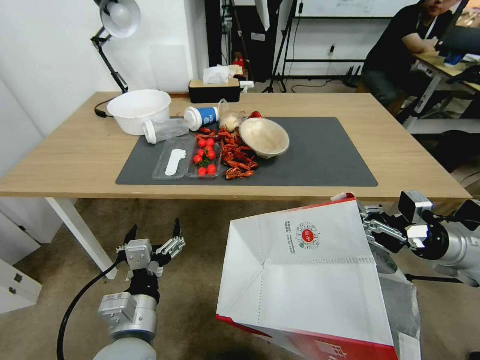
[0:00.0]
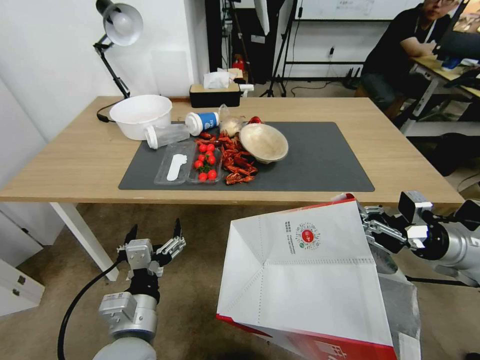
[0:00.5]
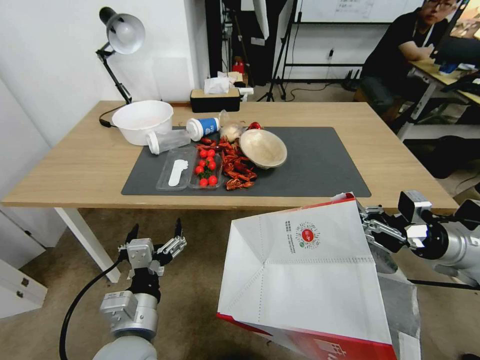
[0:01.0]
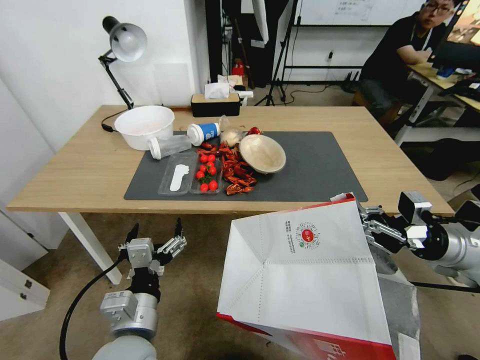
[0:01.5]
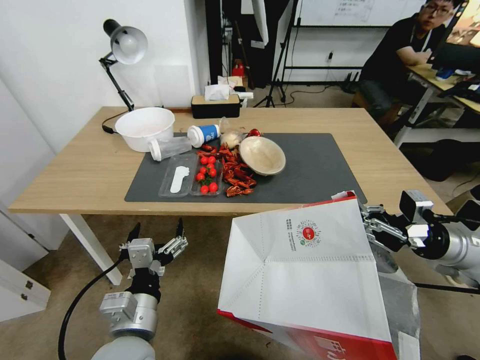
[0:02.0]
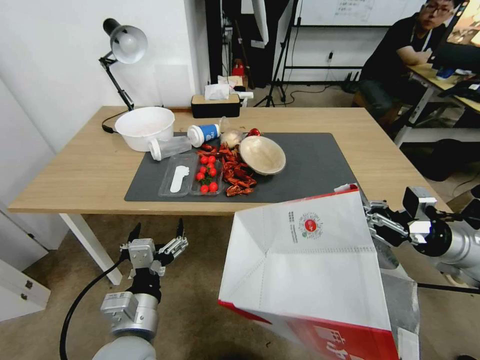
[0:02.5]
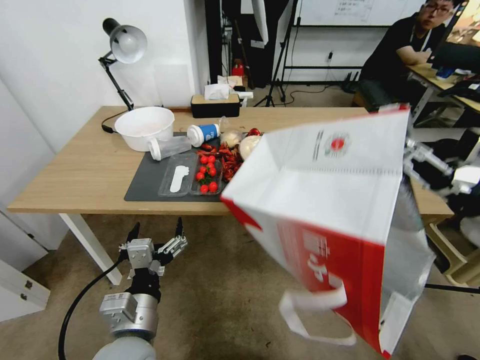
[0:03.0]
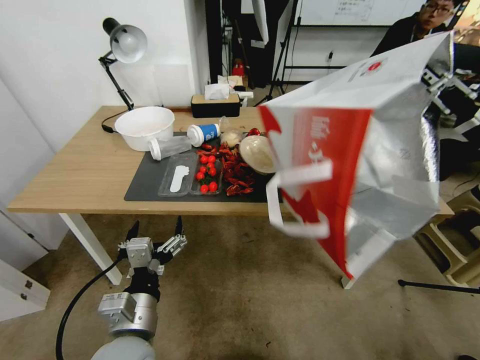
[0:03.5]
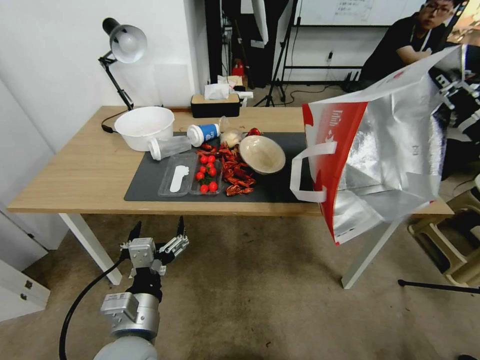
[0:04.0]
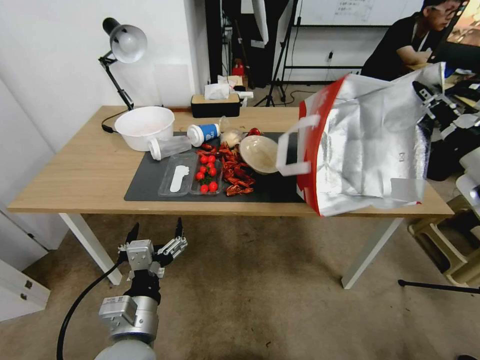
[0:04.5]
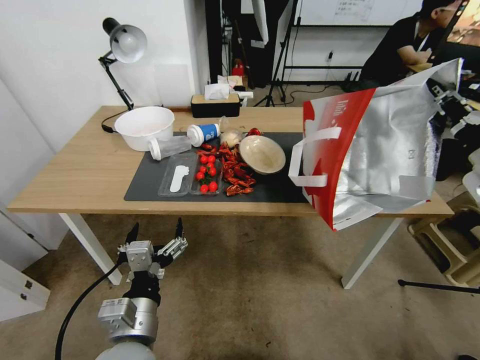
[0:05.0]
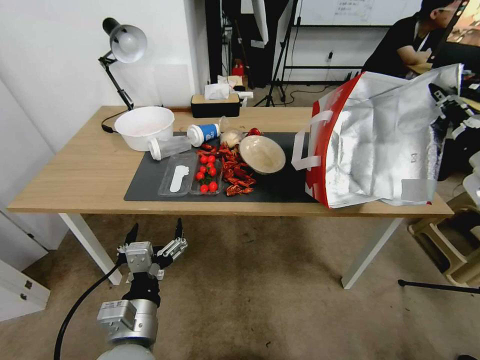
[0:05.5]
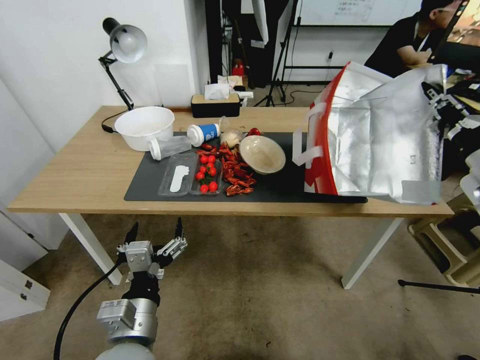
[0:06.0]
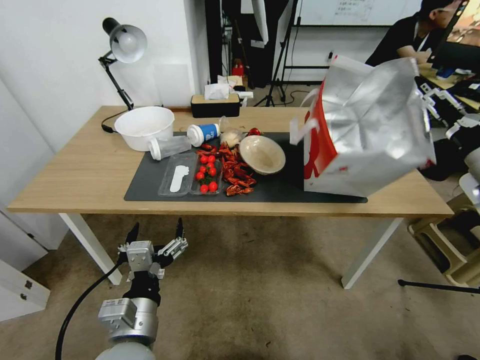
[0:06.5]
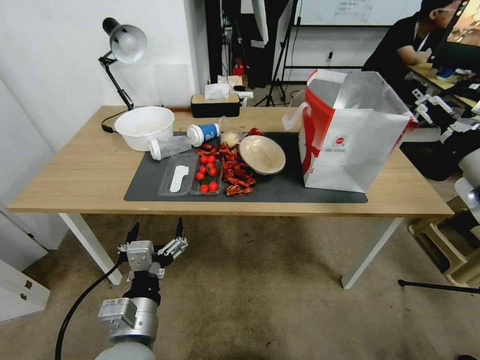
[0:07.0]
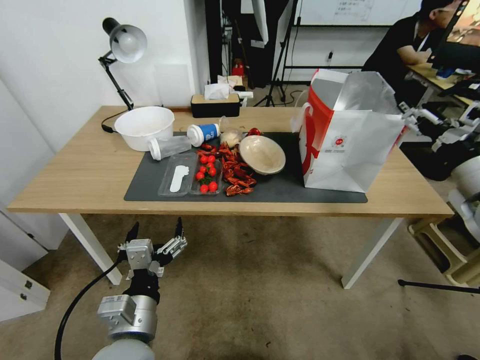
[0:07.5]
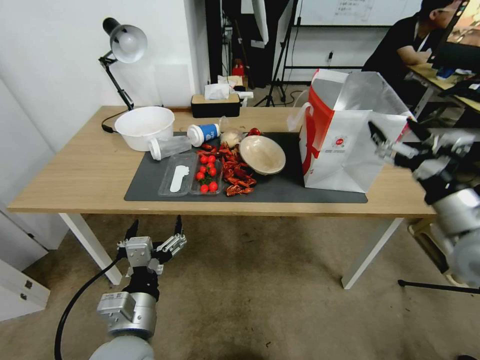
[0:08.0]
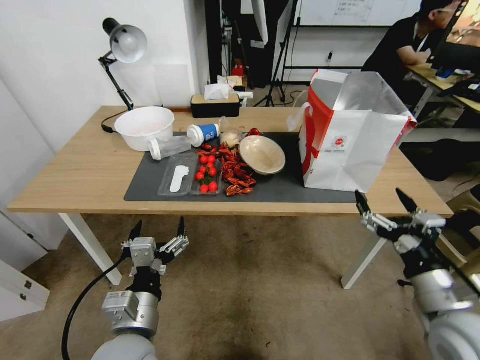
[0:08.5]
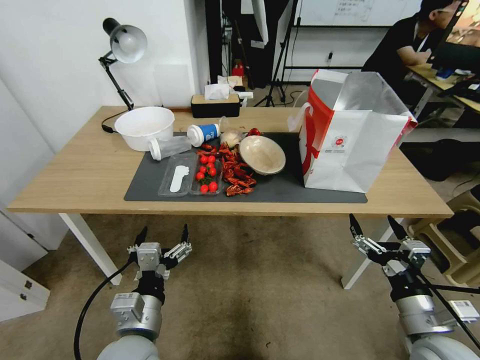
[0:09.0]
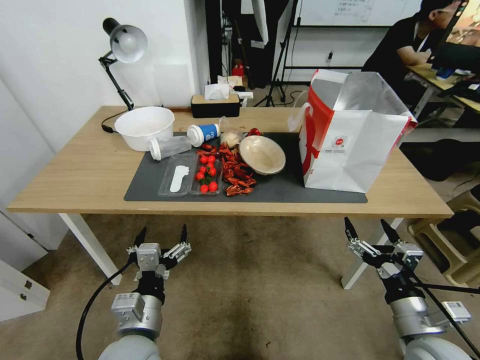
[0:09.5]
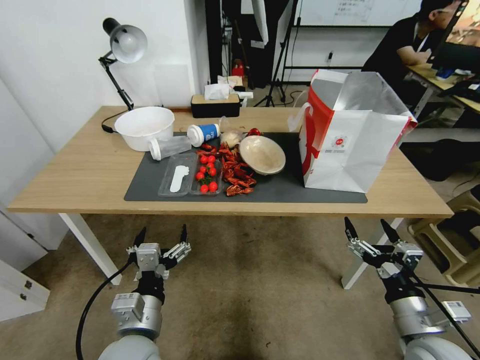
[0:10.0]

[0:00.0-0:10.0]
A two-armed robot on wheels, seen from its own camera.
Task of the whole recording: Pick up the food delivery bag from the floor and place it on the table.
0:02.0 to 0:04.0: The right gripper goes about 15 cm upward.
0:04.0 to 0:06.0: The grippers stay close to where they were, moving slightly.
0:06.0 to 0:08.0: The right gripper shifts approximately 10 cm downward and backward, and opens its fingers.
0:08.0 to 0:10.0: The right gripper shifts approximately 20 cm downward and backward.

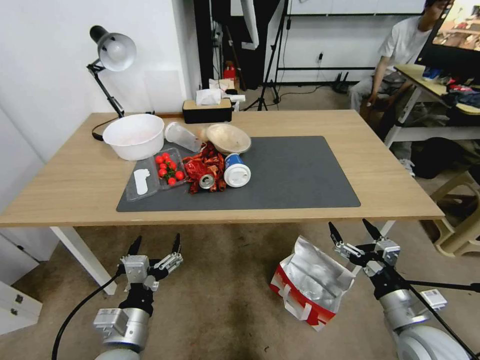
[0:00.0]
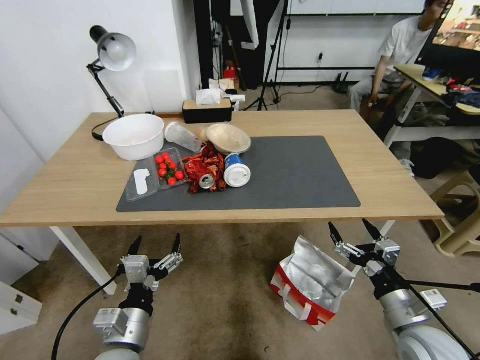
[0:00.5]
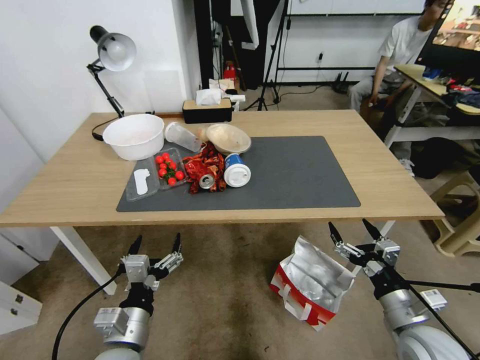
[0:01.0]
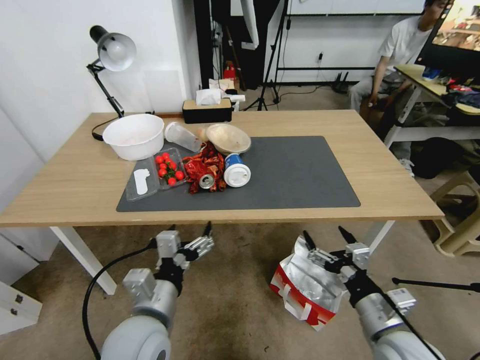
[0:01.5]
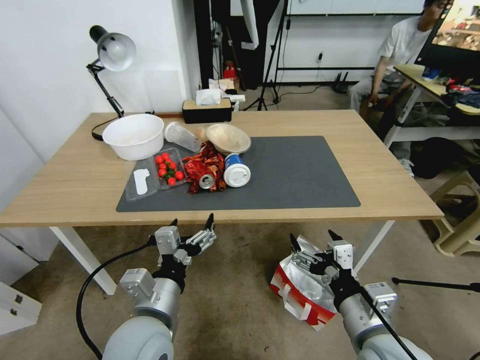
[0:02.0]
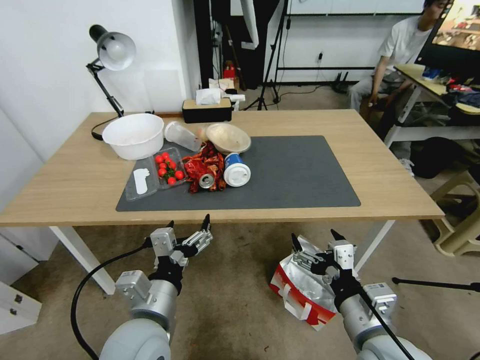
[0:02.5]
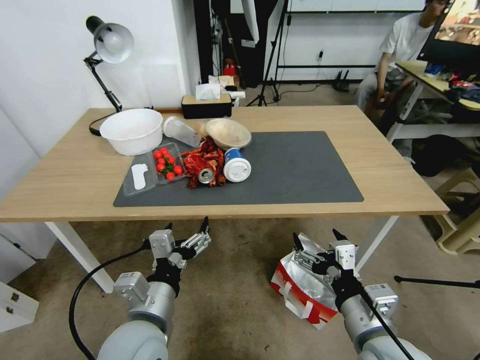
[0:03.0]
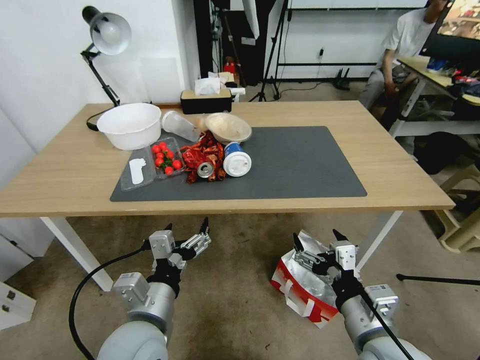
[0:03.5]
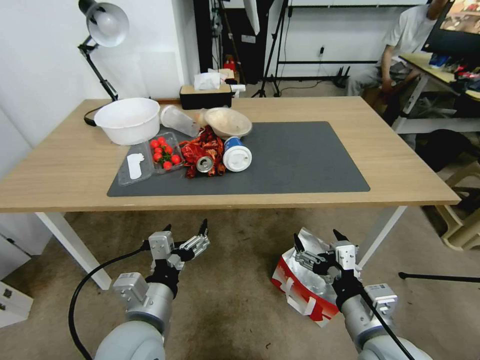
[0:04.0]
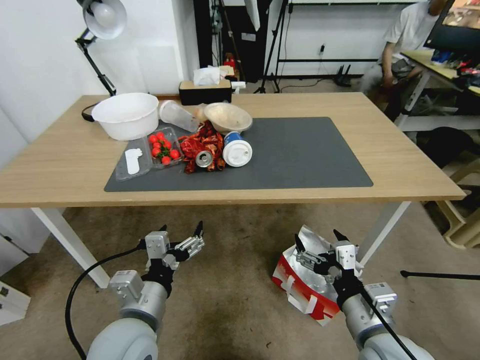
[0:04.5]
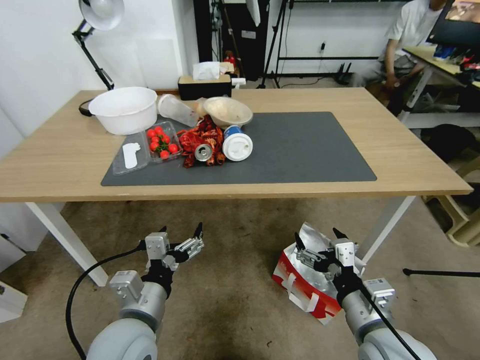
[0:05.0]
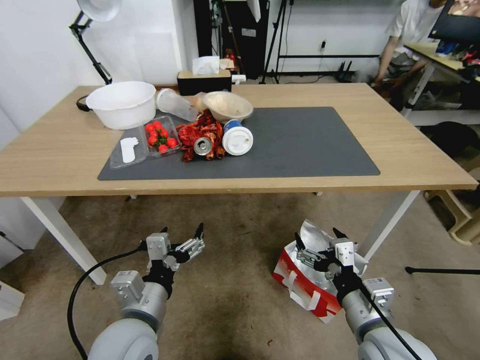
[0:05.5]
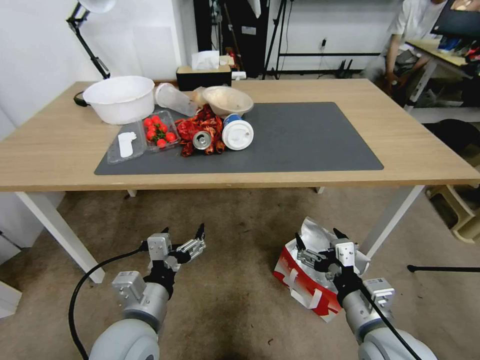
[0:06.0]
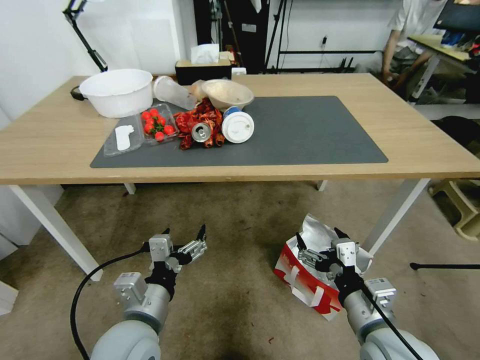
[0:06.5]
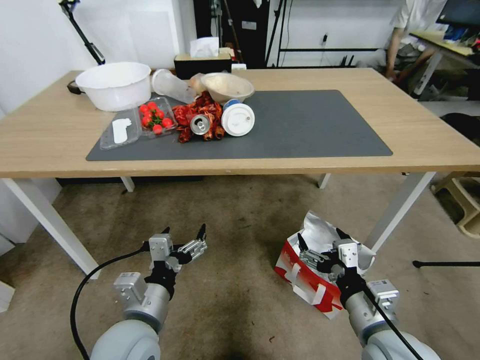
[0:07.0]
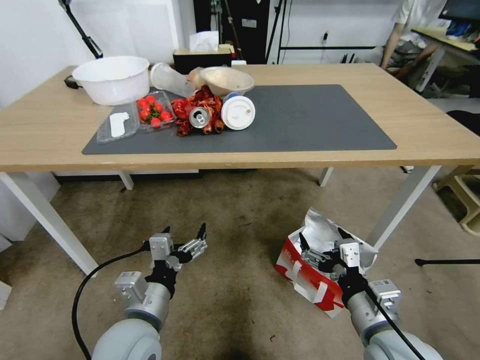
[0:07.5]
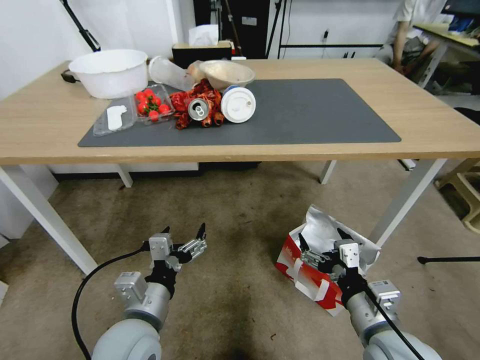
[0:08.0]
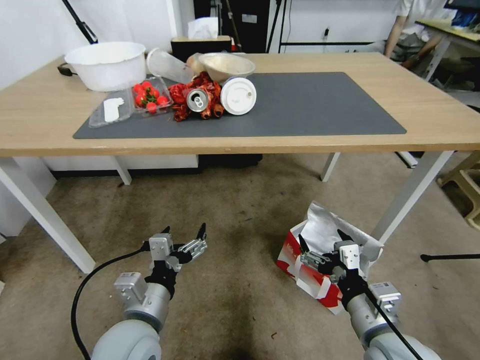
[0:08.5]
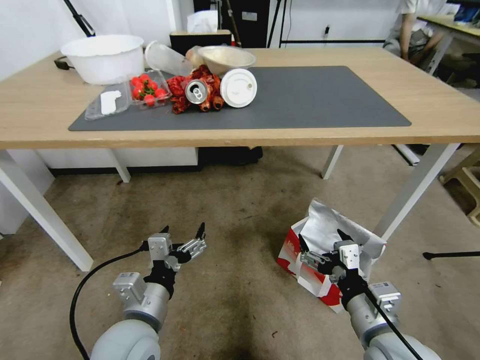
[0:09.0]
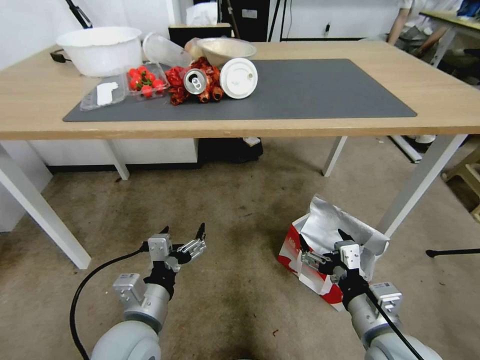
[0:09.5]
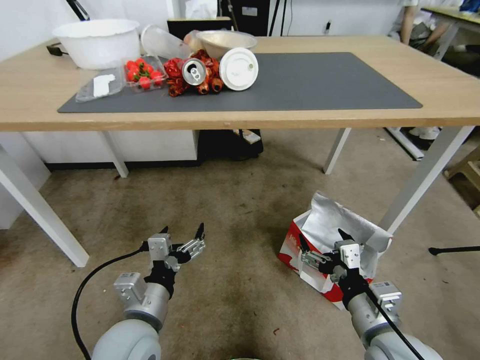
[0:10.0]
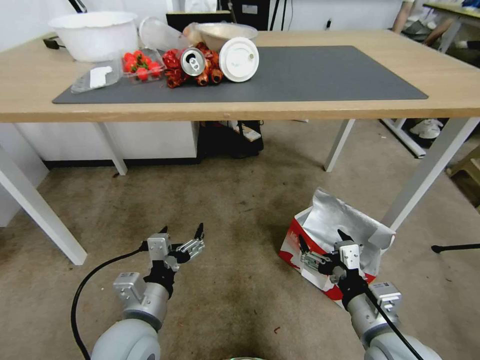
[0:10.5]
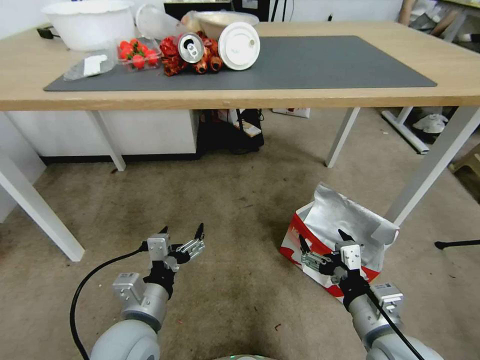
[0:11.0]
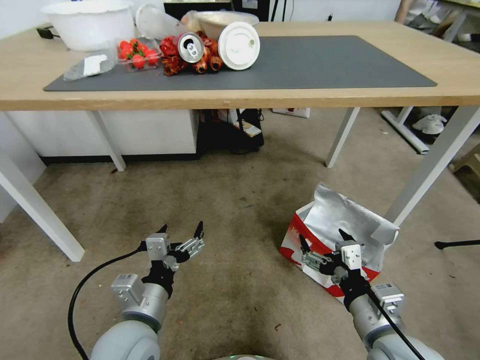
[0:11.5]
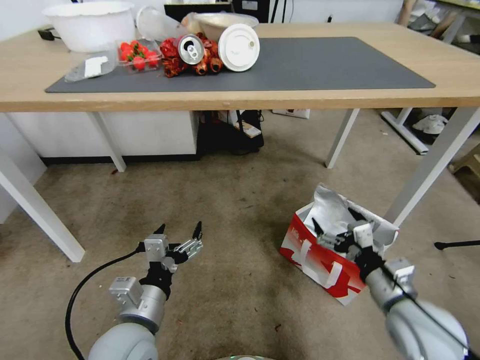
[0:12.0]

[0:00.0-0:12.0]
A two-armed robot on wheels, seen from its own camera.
Task of the whole recording: Pick up the food delivery bag from the floor and place it on the table.
0:10.0 to 0:12.0: The right gripper travels to the right by about 5 cm.

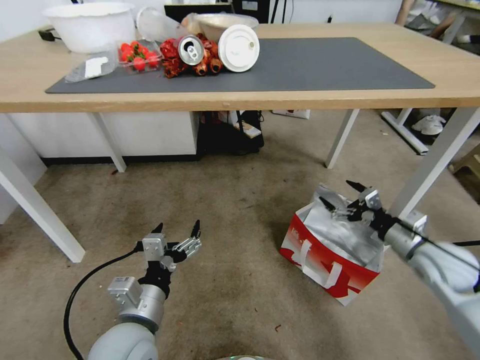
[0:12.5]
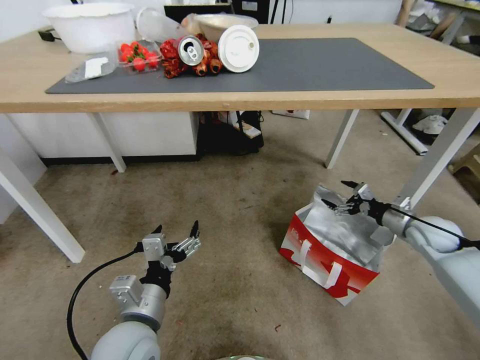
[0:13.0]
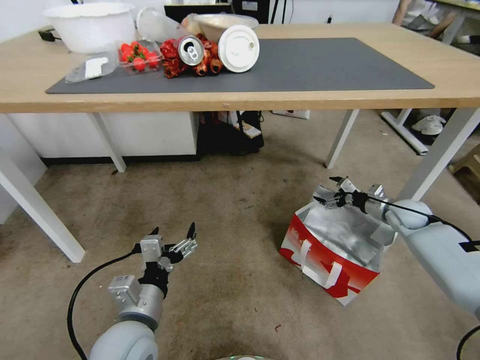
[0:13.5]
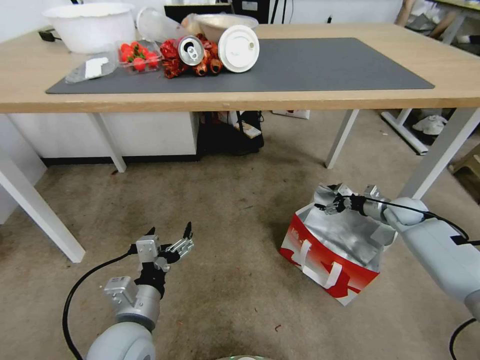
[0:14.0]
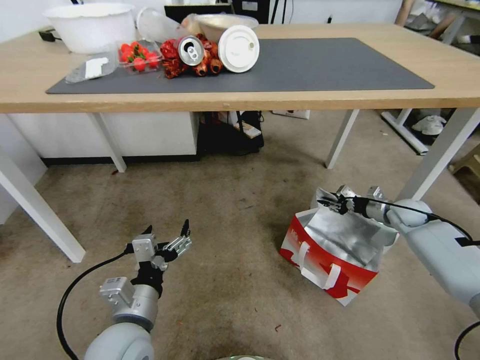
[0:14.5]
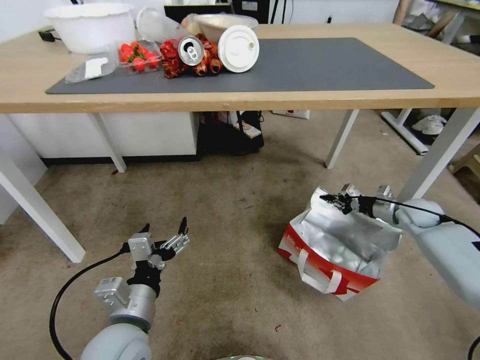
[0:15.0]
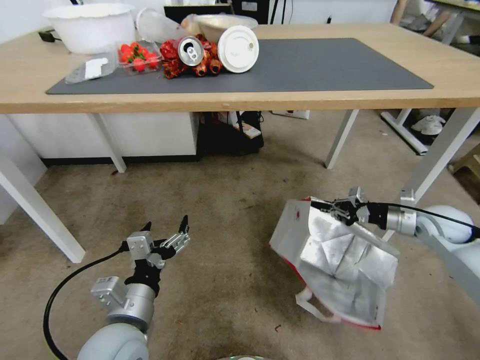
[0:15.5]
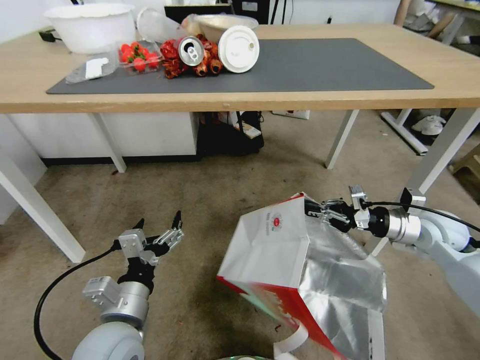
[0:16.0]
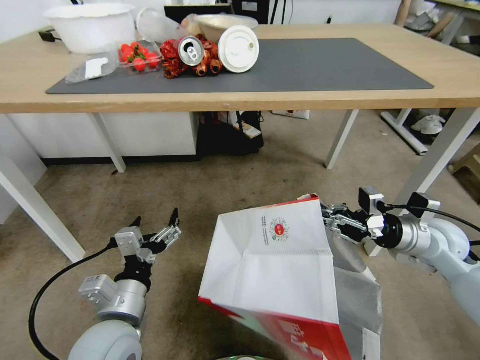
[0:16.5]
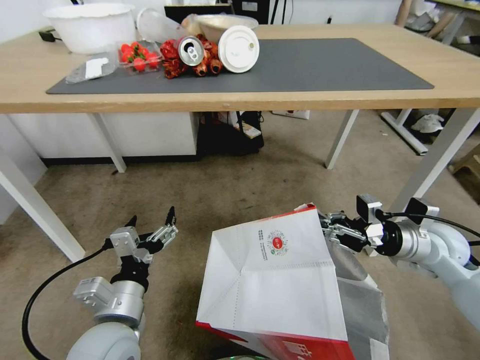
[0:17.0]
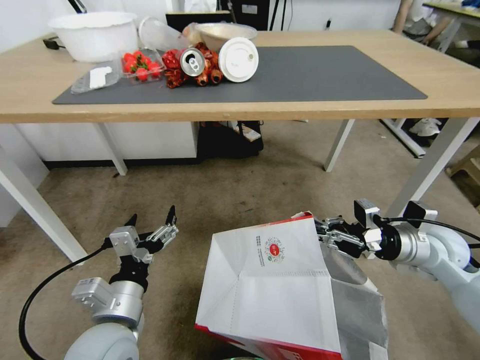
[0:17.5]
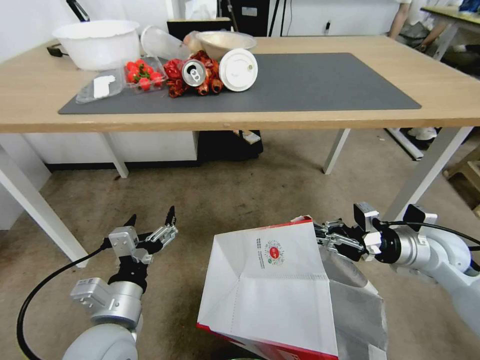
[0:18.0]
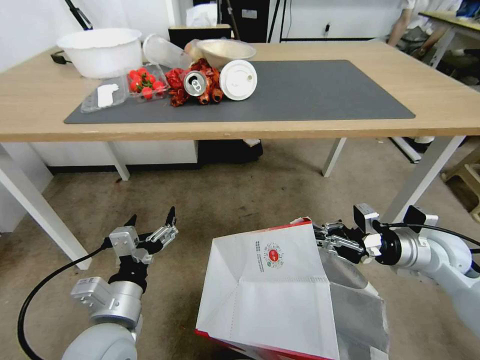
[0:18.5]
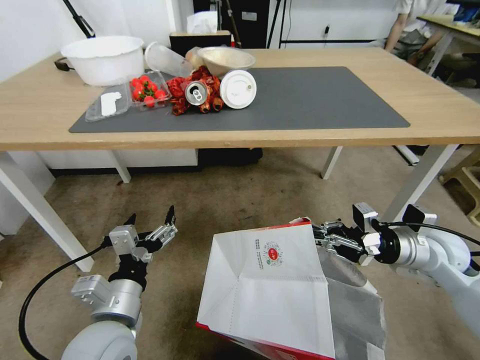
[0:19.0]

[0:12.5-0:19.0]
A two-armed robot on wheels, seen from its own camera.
Task of the whole recording: Pick up the food delivery bag from the floor and place it on the table.
0:12.5 to 0:14.5: The right gripper travels forward and downward by about 20 cm, and closes up.
0:14.5 to 0:17.0: The right gripper is displaced backward, upward and to the left by roughly 20 cm, and closes.
